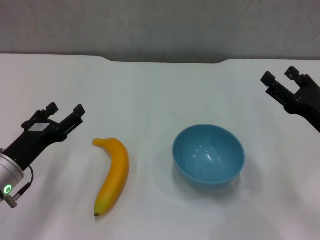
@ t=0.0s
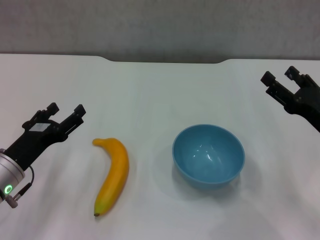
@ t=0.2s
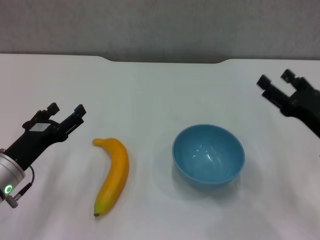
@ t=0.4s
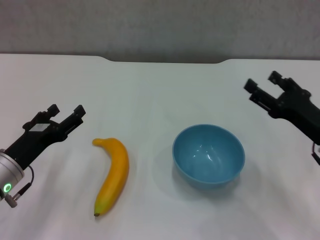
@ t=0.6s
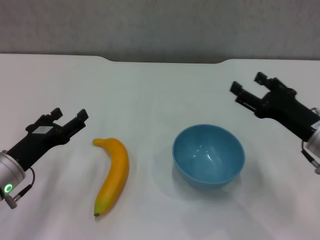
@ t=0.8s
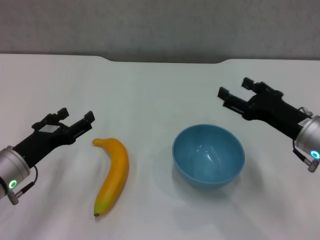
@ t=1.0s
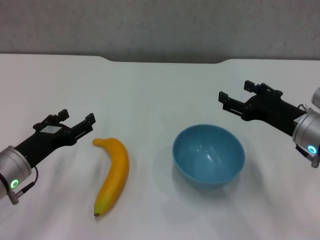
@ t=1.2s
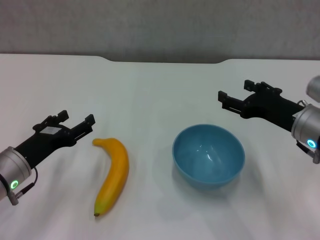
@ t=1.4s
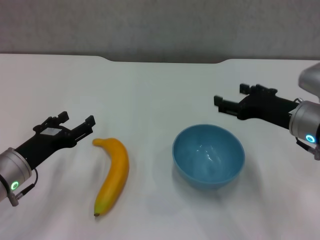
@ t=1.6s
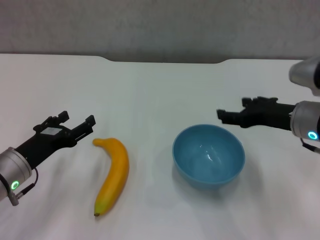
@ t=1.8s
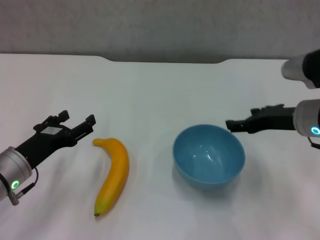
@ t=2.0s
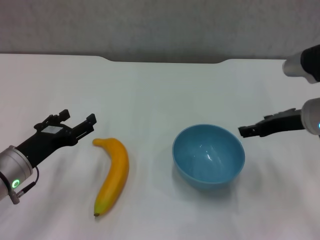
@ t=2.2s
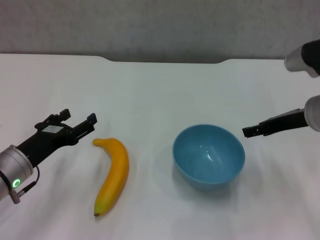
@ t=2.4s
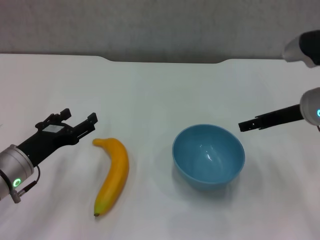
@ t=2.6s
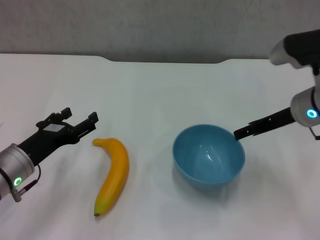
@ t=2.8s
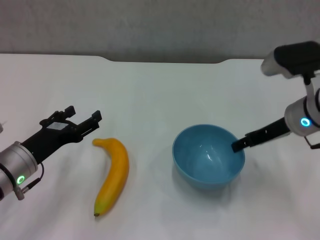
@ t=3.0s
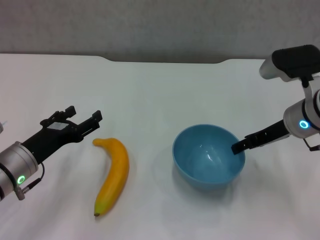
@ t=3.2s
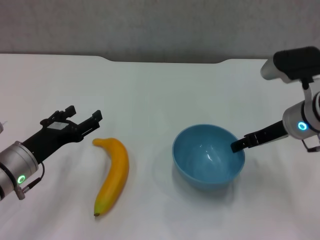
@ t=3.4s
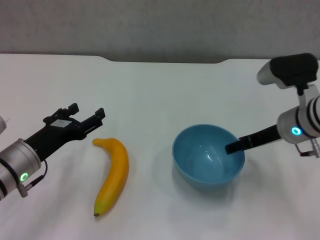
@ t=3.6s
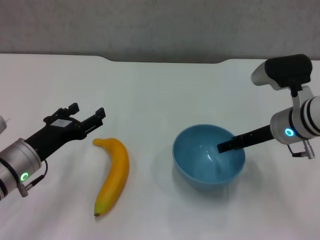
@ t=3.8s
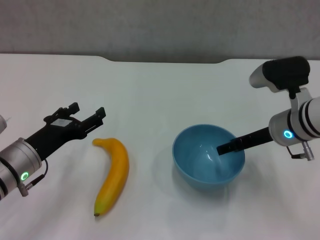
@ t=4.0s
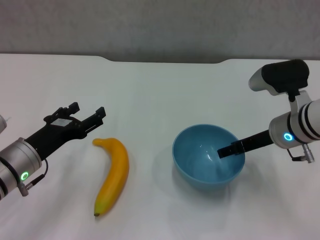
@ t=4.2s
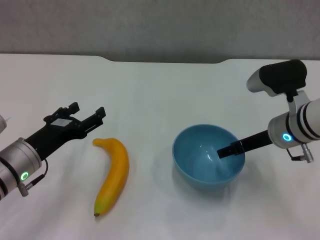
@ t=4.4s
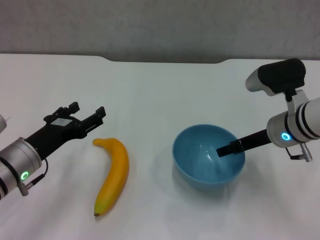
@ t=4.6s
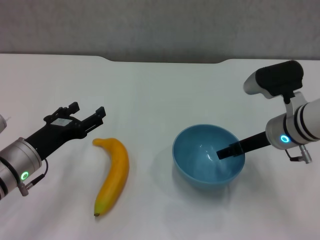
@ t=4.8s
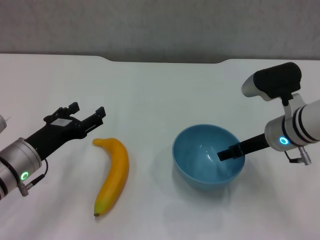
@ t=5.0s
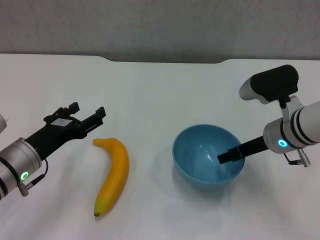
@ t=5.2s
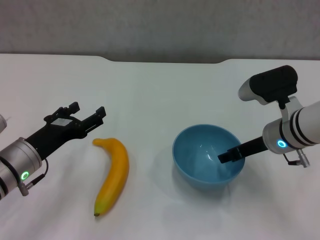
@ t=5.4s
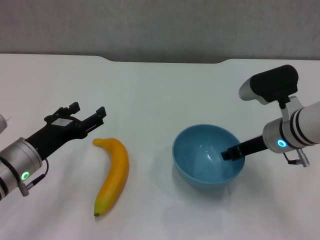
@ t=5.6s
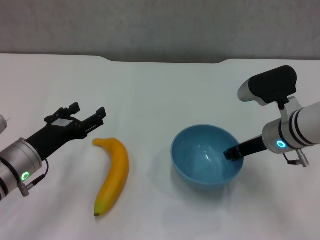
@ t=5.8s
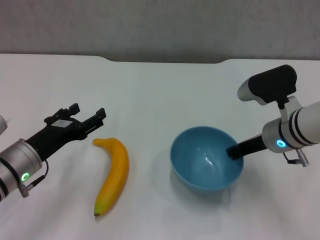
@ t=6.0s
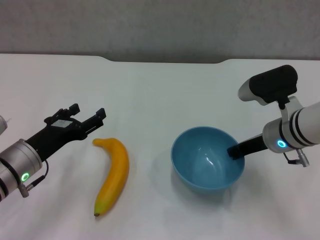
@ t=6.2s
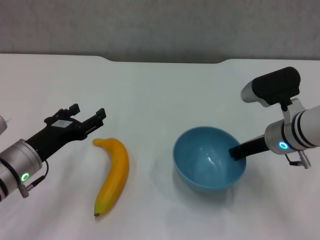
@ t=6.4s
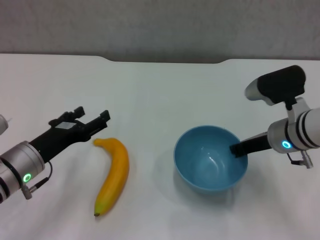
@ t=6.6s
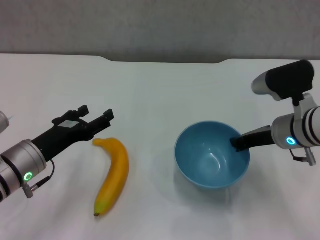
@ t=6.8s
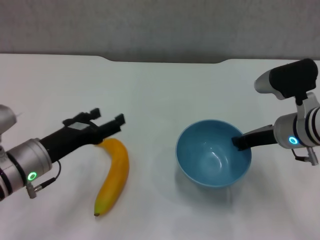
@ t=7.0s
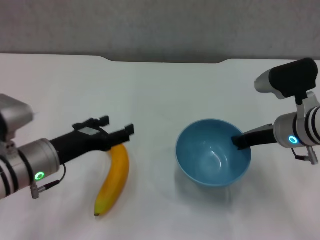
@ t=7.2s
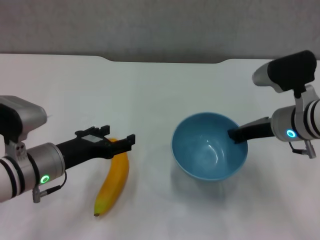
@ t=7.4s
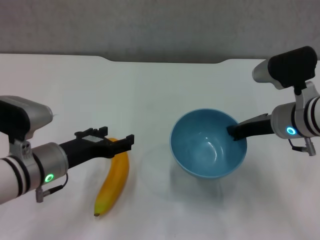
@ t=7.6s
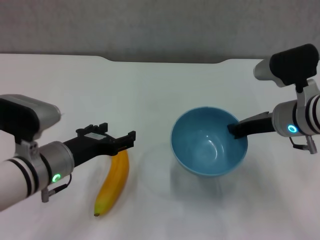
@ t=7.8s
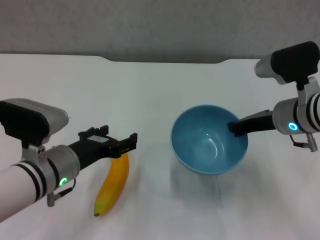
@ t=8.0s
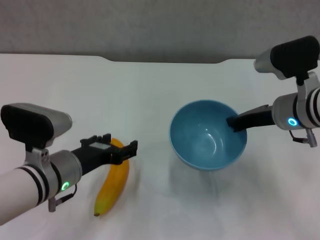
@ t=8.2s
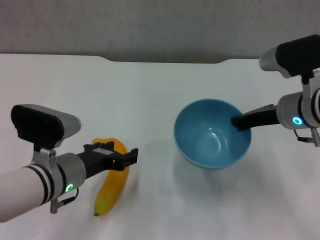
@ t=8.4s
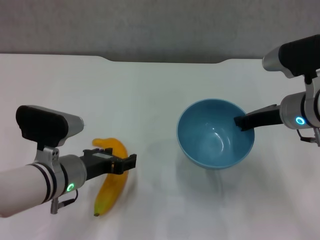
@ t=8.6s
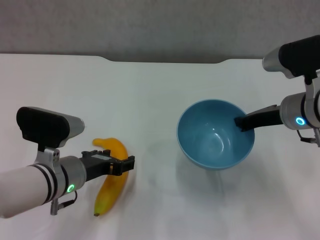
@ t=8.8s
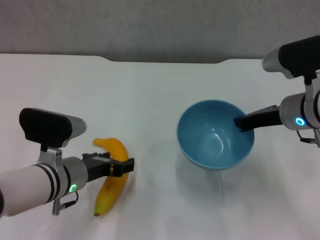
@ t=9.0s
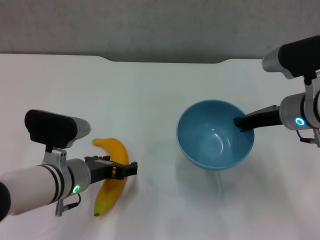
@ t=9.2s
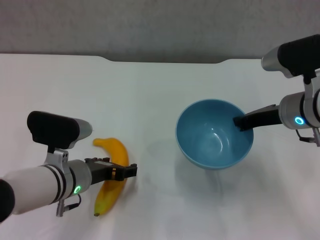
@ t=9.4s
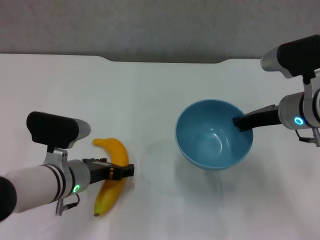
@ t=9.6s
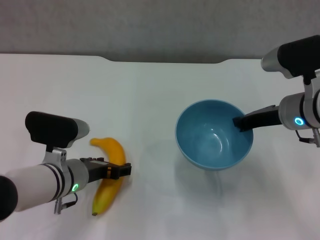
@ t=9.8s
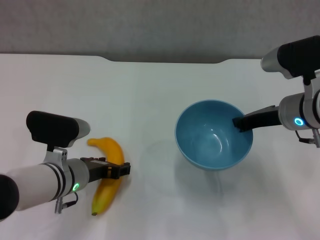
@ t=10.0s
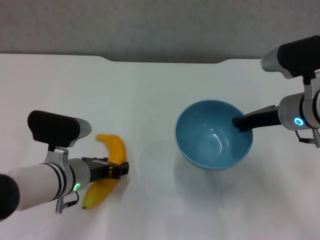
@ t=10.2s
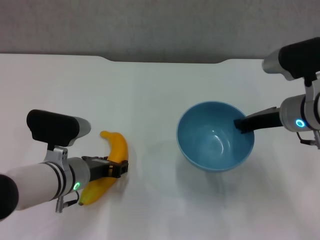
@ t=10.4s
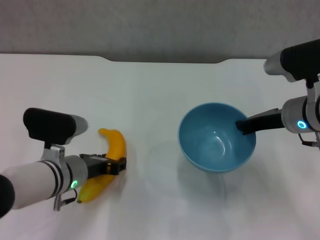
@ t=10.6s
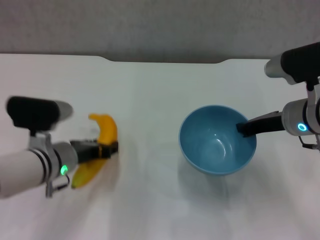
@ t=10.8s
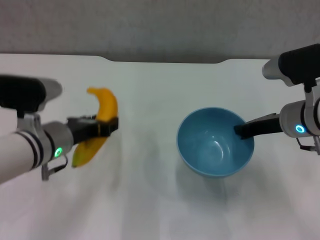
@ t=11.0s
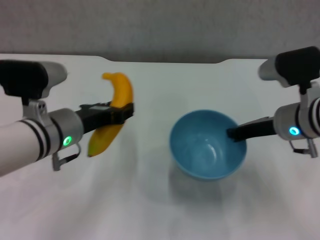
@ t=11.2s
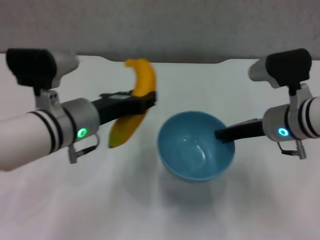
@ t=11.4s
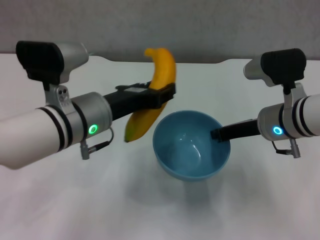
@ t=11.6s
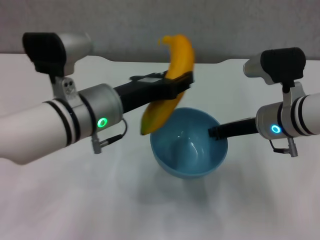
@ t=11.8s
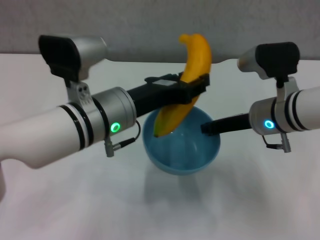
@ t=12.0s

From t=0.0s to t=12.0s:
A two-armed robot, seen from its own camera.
Step, from t=0.0s to t=6.2s: Grasp the blue bowl with right gripper.
Step, from t=6.6s to t=7.4s: Lift the blue bowl with right gripper.
Step, from t=7.6s to t=10.2s: Grasp the banana with left gripper.
From t=0.0s to t=1.6s: The right gripper goes some 5 cm to the left.
From t=3.0s to t=4.4s: There are only small adjustments of the grippers.
From t=4.4s to t=6.0s: The right gripper closes.
From t=9.0s to t=10.4s: The left gripper closes up.
From t=10.4s to t=12.0s: The left gripper is displaced upward and to the right by some 15 cm.

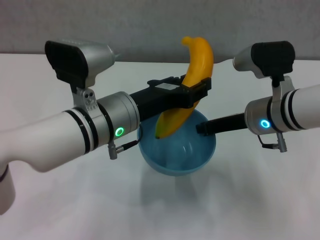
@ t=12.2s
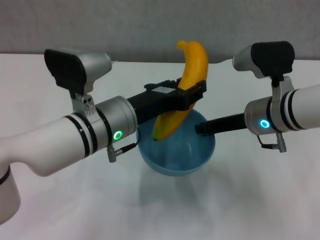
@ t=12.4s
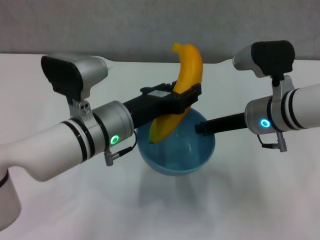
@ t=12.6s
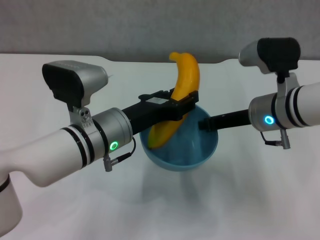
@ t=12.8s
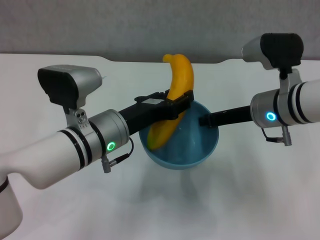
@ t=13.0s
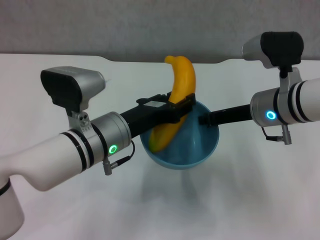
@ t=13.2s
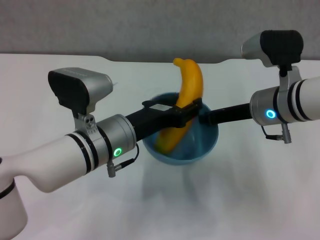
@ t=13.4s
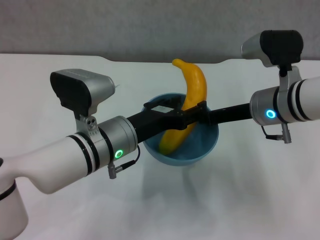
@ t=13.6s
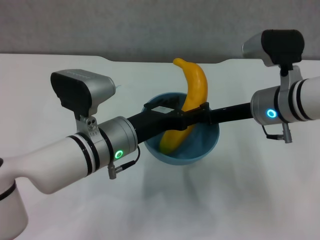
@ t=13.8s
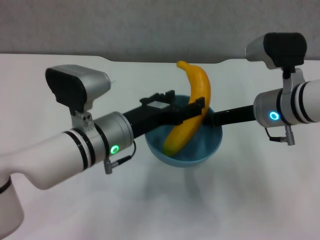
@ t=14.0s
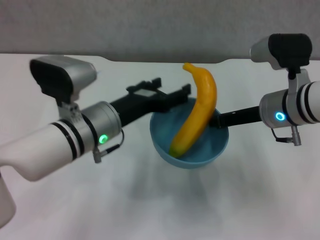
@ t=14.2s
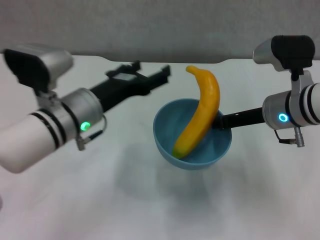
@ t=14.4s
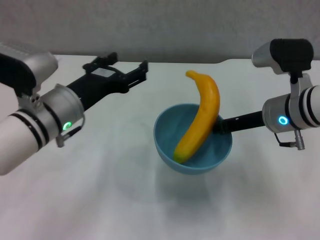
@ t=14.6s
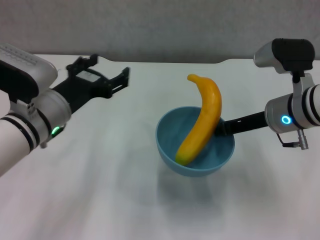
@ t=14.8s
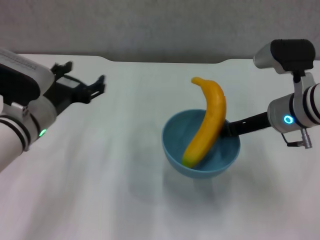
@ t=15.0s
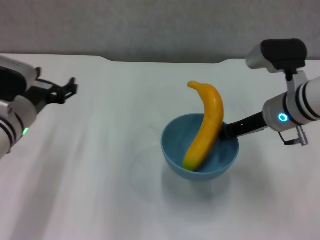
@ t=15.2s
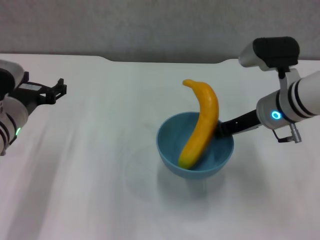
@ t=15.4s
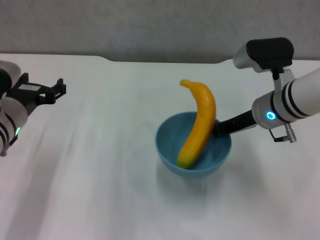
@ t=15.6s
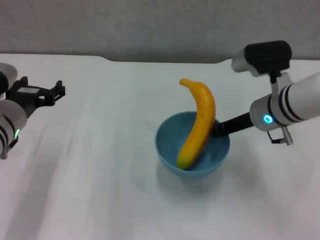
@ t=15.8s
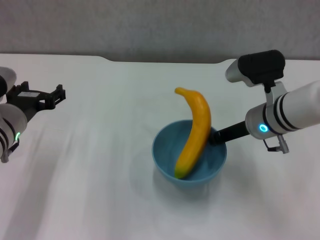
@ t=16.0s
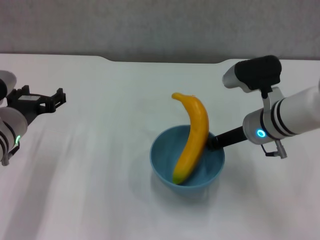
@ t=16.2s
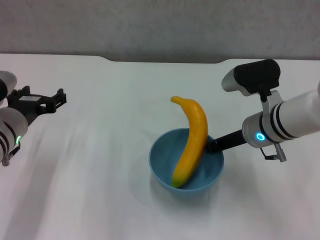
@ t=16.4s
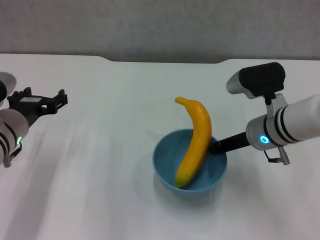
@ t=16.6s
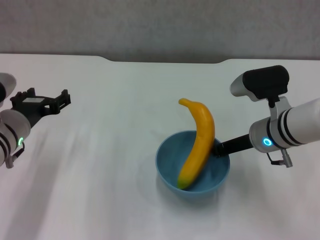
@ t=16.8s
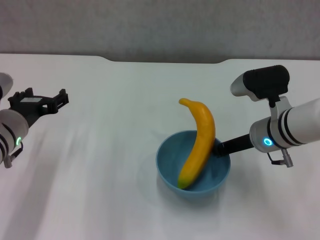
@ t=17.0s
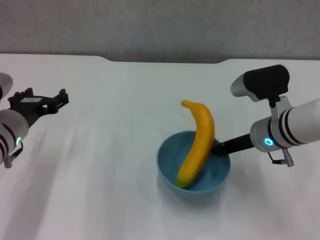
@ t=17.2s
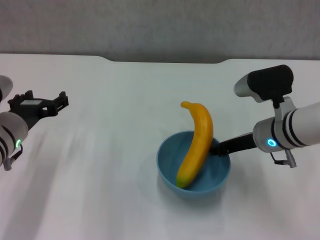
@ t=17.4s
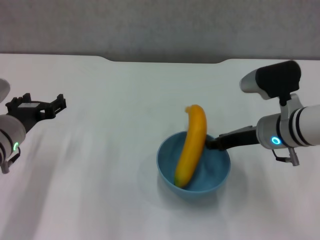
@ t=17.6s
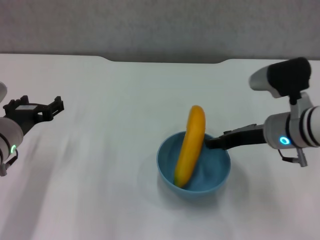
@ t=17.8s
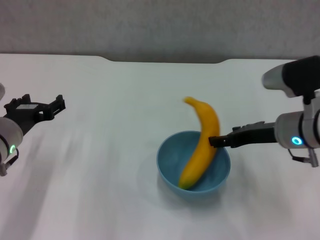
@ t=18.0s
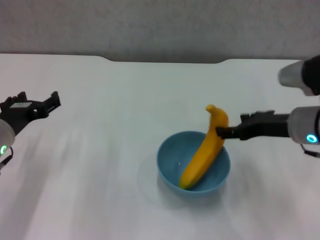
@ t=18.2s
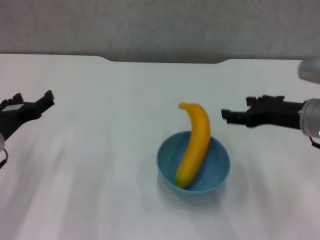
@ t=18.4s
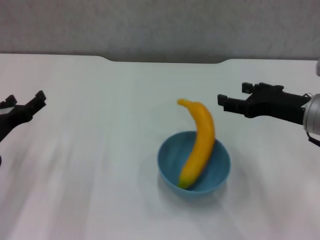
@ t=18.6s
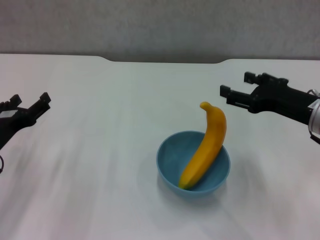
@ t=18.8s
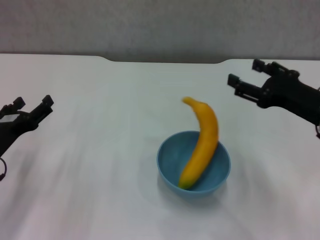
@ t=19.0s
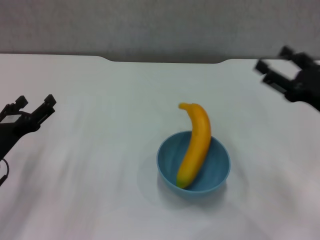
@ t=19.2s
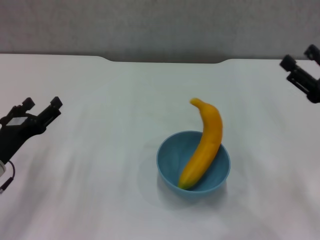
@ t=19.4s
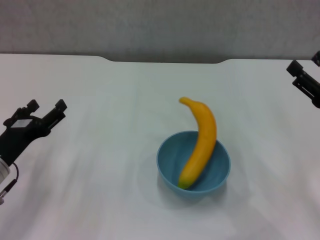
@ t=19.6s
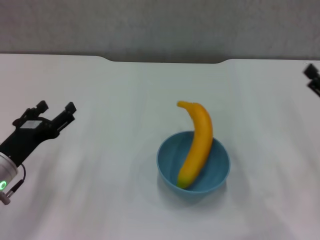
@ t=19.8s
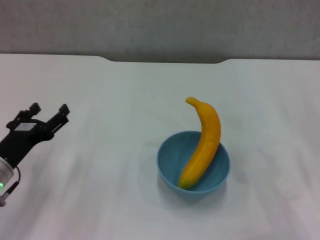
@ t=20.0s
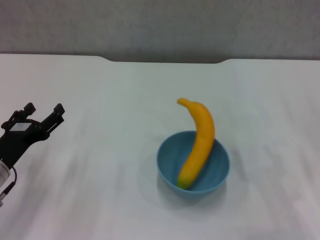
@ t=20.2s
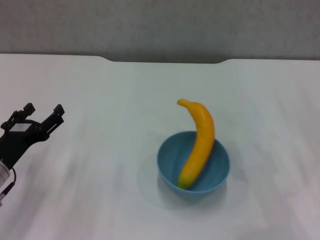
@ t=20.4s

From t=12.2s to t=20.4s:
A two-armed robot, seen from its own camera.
Step, from t=14.2s to t=18.0s: Place the bowl on the table with right gripper.
From t=12.2s to t=13.8s: The left gripper opens up.
From t=13.8s to t=15.4s: The left gripper moves to the left, about 15 cm.
From t=17.2s to t=18.8s: The right gripper shifts approximately 10 cm to the right, backward and upward, and opens up, while the left gripper heads to the left, covering approximately 5 cm.
From t=18.8s to t=20.4s: The right gripper moves to the right and downward, about 10 cm.
